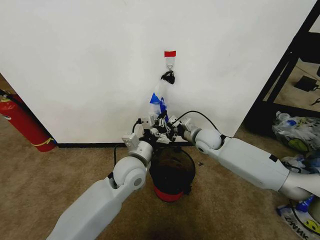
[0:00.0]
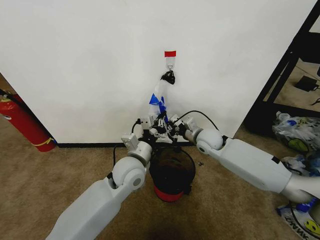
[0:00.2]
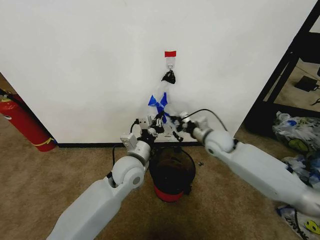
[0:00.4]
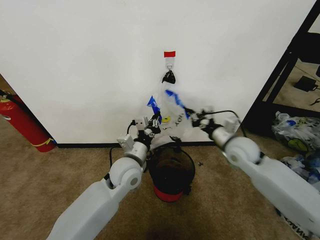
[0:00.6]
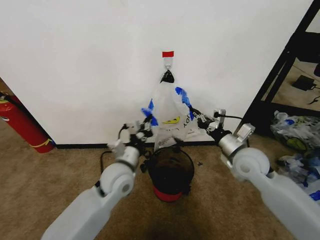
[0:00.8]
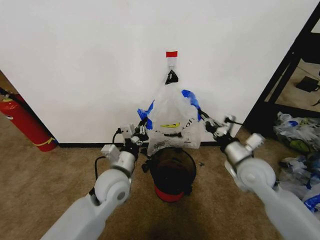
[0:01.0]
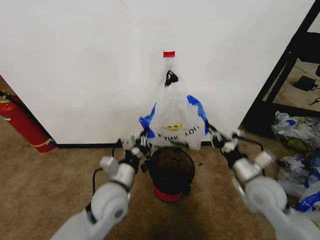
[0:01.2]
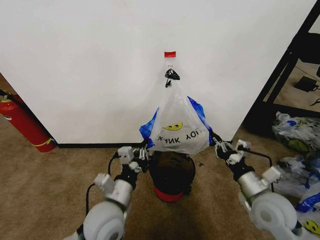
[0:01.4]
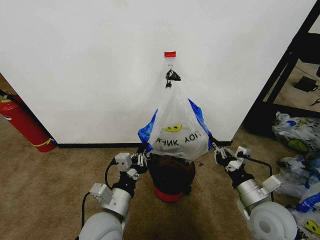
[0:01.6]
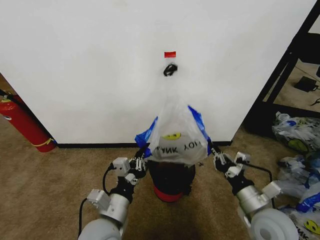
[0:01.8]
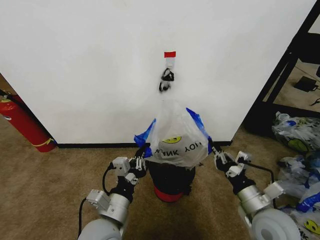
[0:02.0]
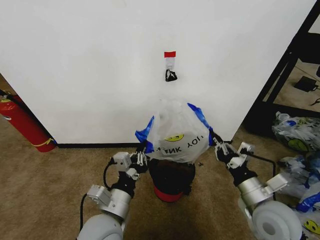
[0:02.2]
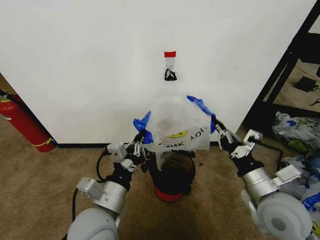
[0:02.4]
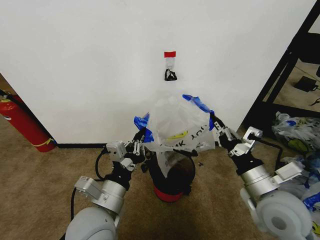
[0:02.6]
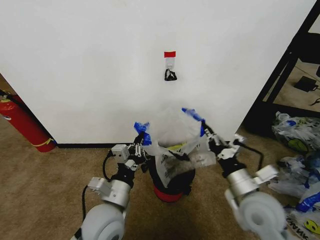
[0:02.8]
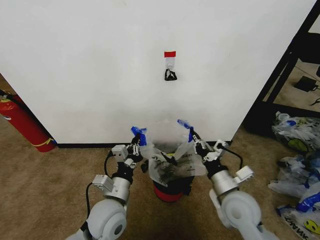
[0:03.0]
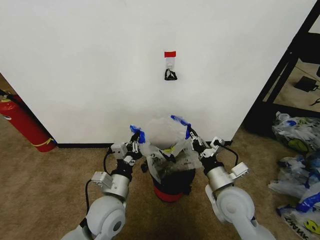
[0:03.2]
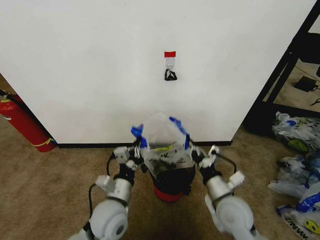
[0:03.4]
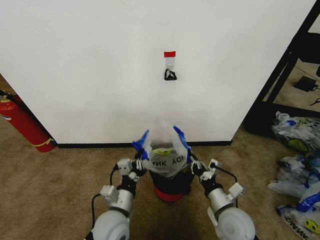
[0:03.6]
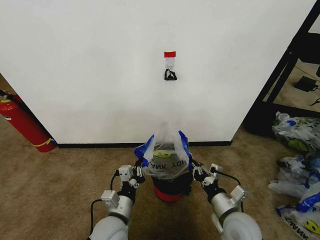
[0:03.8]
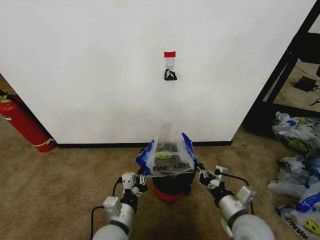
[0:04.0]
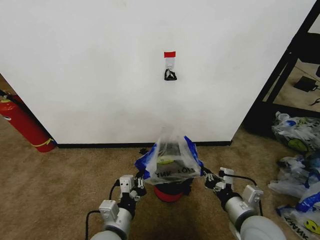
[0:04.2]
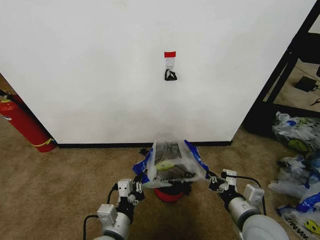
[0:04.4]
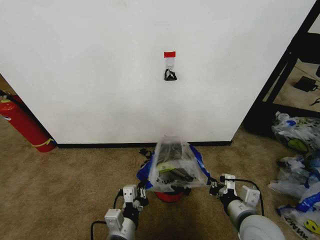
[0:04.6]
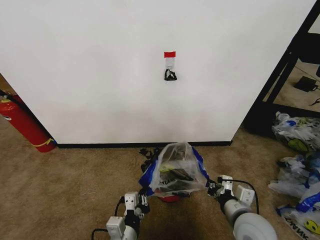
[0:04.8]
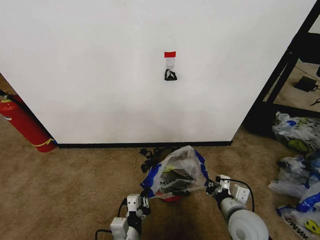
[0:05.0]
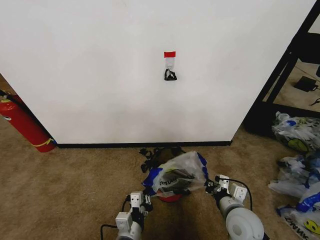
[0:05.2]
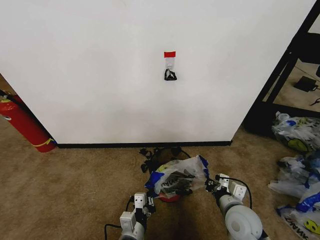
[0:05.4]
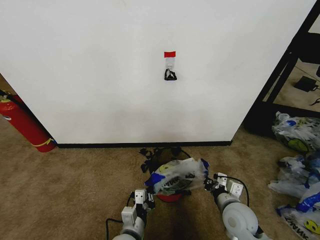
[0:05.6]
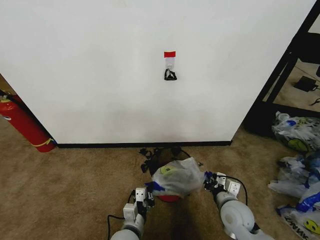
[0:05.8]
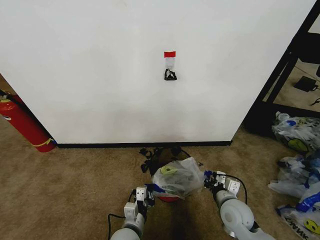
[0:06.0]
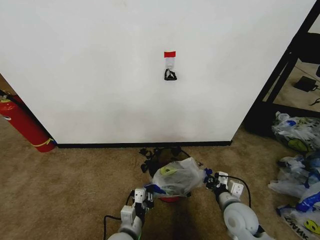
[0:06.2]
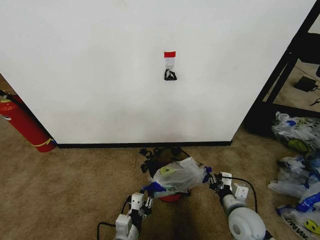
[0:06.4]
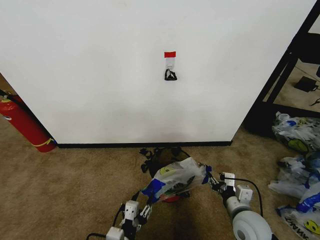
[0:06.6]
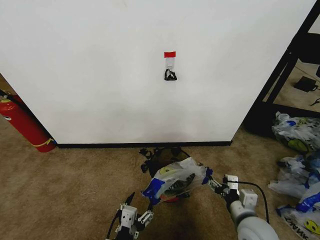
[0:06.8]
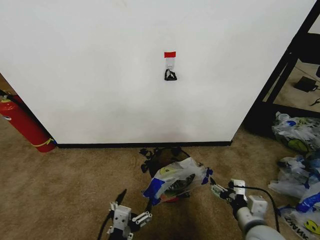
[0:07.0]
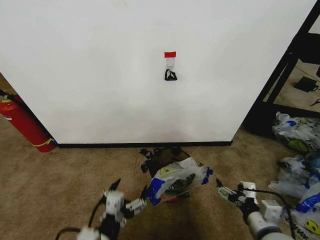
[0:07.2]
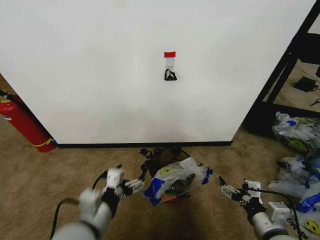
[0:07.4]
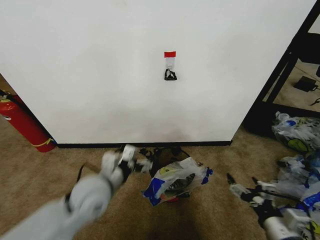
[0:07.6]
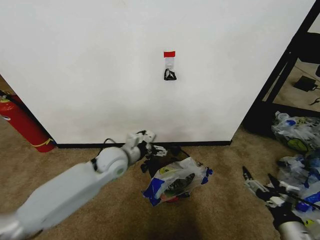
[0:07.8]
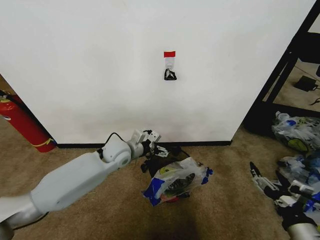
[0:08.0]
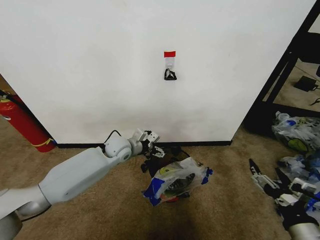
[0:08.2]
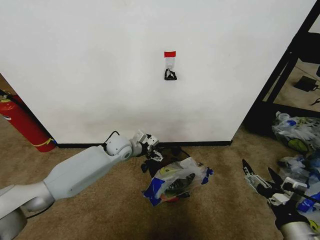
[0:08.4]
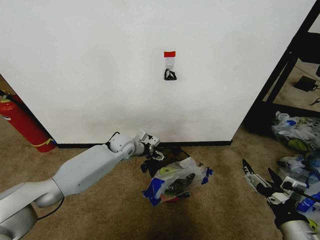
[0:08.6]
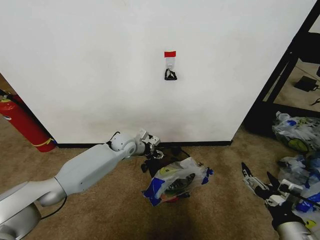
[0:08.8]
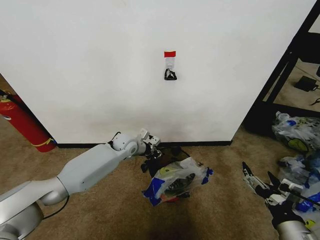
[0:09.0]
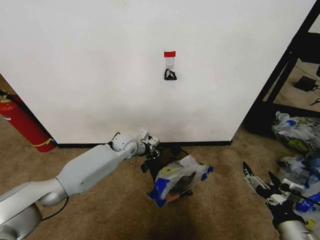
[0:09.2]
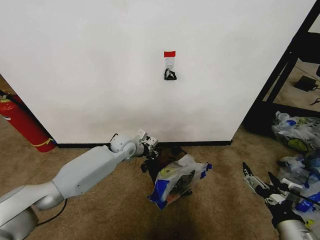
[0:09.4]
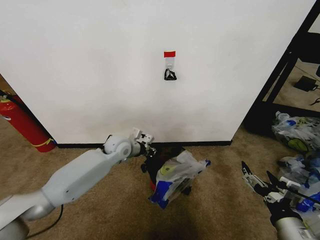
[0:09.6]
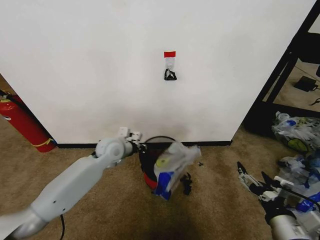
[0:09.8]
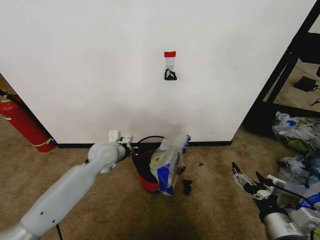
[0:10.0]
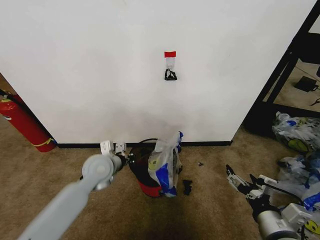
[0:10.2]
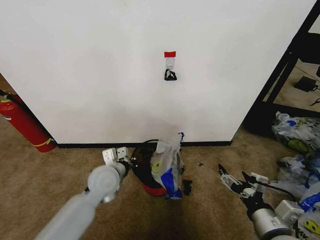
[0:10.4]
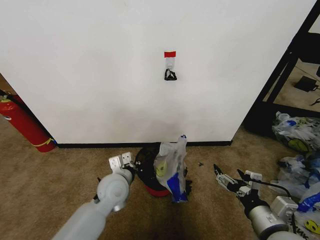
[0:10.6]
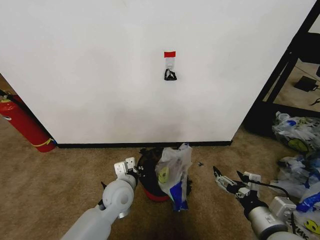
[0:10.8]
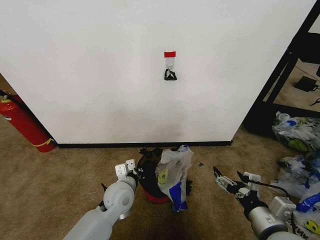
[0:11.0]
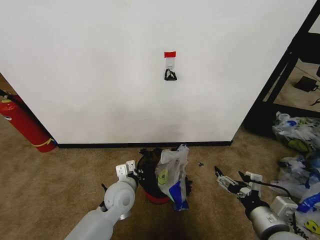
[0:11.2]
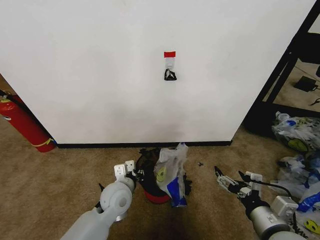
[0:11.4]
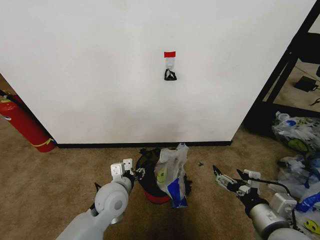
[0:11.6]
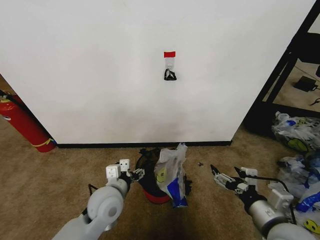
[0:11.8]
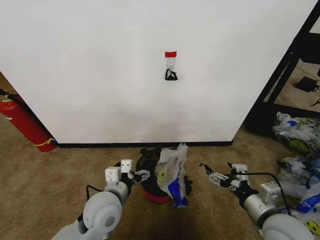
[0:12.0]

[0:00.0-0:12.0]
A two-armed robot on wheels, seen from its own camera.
Task of the whole recording: Pick up the garbage bag from the wall and place it over the trash bin.
0:00.0 to 0:01.6: The right gripper moves backward, some 25 cm. The left gripper travels backward by roughly 15 cm.
0:01.6 to 0:03.0: The right gripper heads to the left, covering some 5 cm, and goes upward and returns, about 5 cm each way.
0:03.0 to 0:04.4: The grippers both shift backward by approximately 5 cm.
0:04.4 to 0:06.0: The right gripper travels downward and forward by some 15 cm; the left gripper moves downward, some 10 cm.
0:06.0 to 0:07.6: The left gripper shifts roughly 20 cm upward, and opens. The right gripper is displaced backward, upward and to the right by approximately 15 cm, and opens its fingers.
0:07.6 to 0:09.0: The left gripper heads forward, covering about 25 cm, and closes up.
0:09.0 to 0:10.4: The left gripper travels backward by about 15 cm.
0:10.4 to 0:12.0: The left gripper heads backward, covering approximately 10 cm, and opens up.

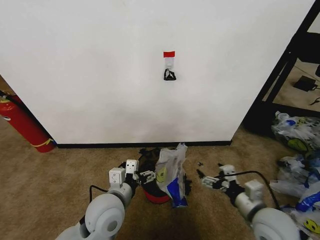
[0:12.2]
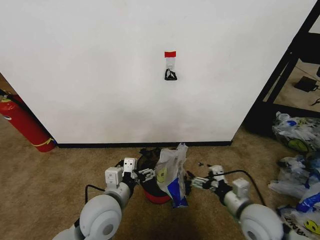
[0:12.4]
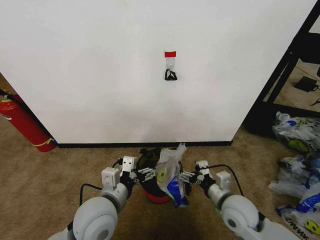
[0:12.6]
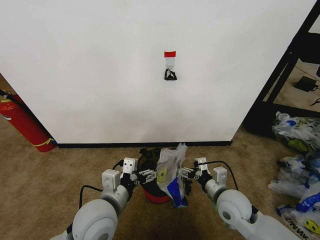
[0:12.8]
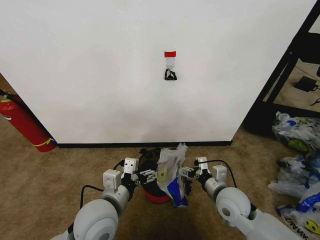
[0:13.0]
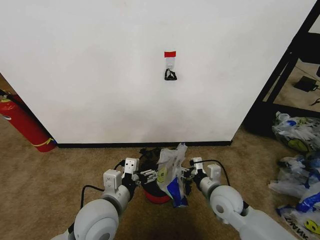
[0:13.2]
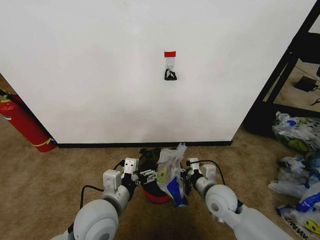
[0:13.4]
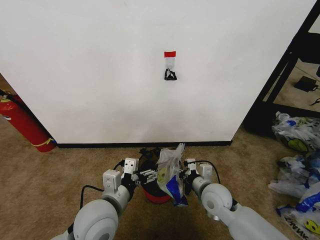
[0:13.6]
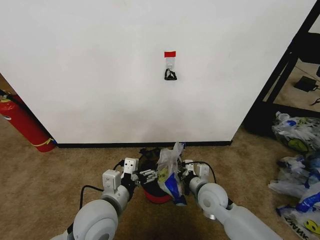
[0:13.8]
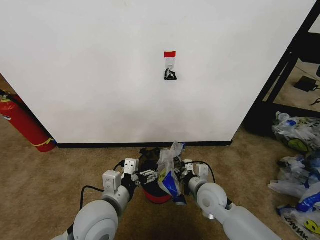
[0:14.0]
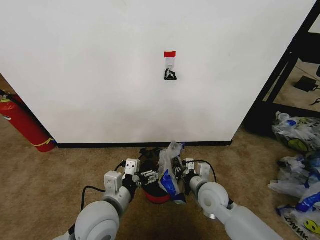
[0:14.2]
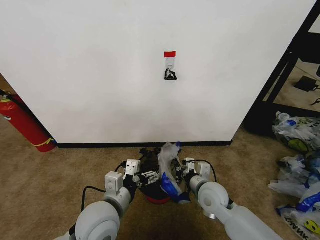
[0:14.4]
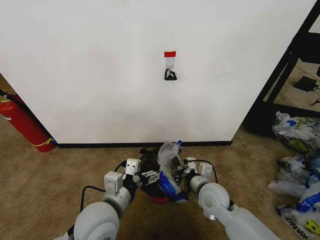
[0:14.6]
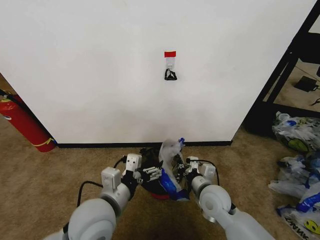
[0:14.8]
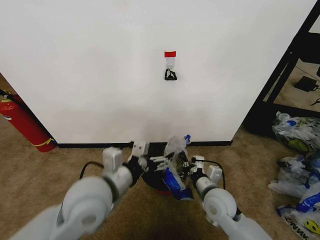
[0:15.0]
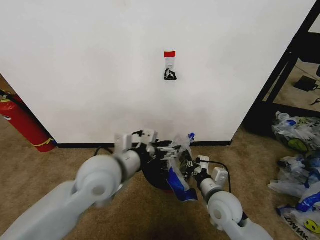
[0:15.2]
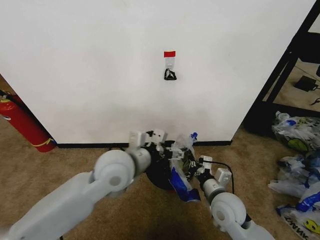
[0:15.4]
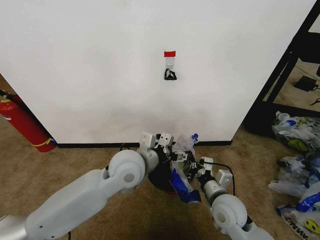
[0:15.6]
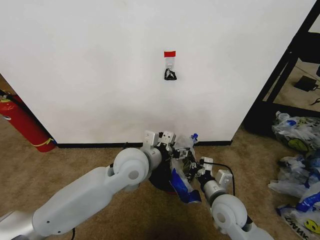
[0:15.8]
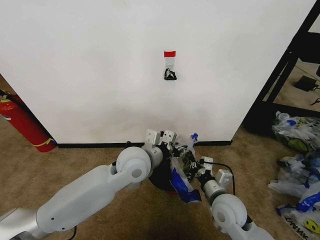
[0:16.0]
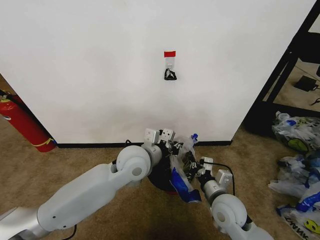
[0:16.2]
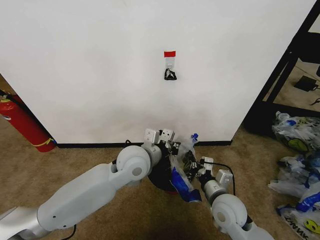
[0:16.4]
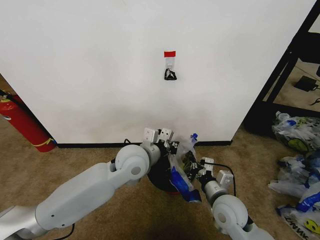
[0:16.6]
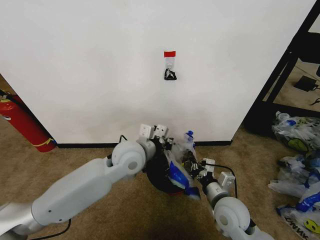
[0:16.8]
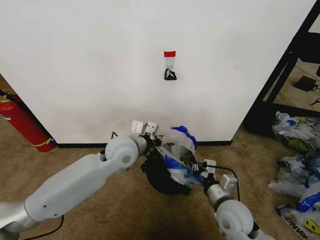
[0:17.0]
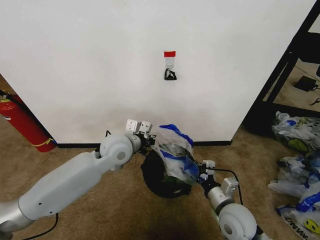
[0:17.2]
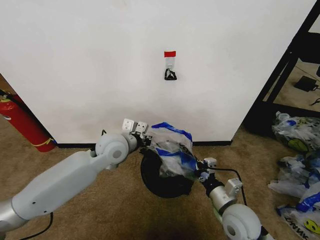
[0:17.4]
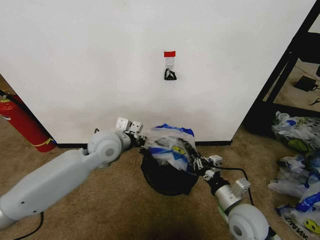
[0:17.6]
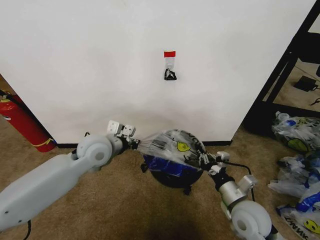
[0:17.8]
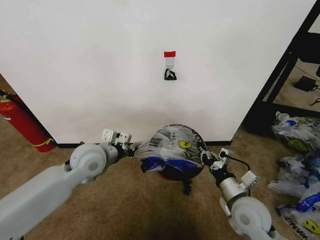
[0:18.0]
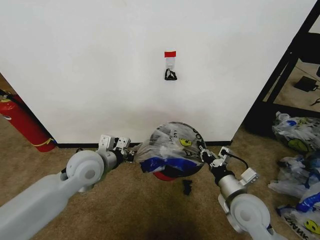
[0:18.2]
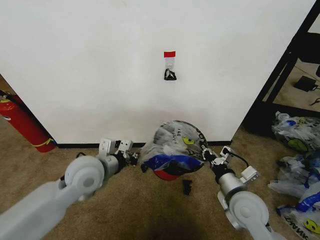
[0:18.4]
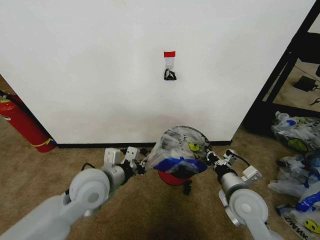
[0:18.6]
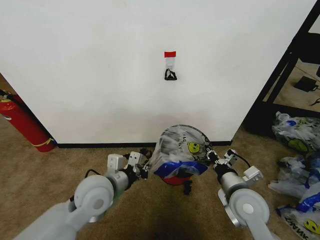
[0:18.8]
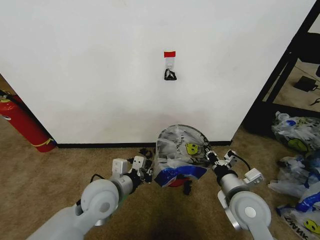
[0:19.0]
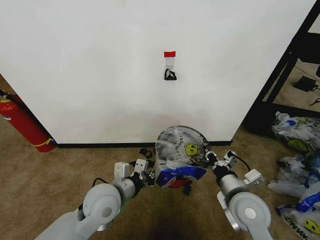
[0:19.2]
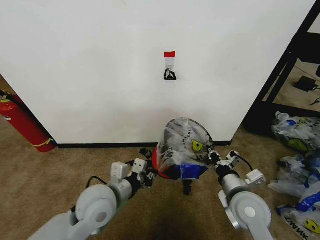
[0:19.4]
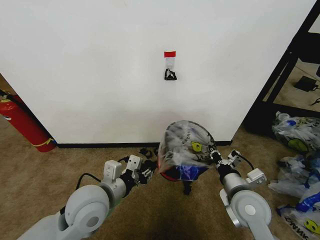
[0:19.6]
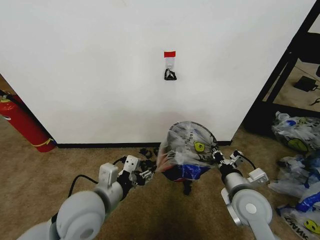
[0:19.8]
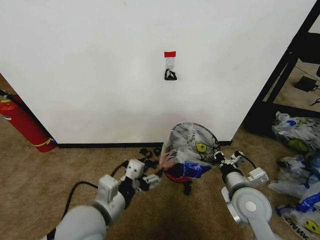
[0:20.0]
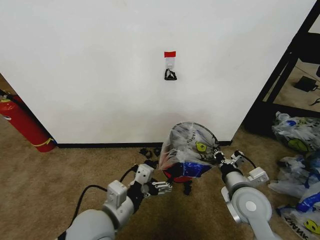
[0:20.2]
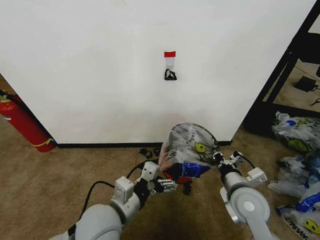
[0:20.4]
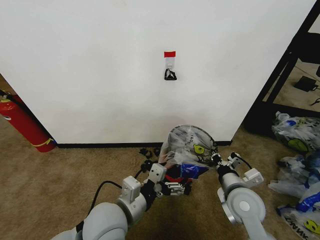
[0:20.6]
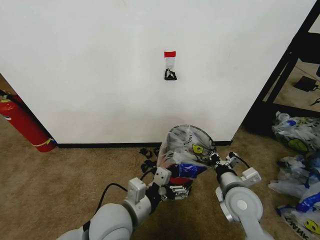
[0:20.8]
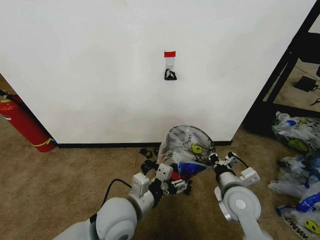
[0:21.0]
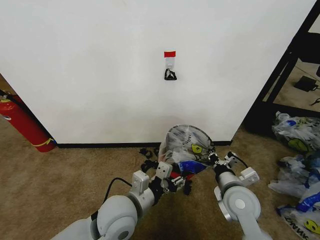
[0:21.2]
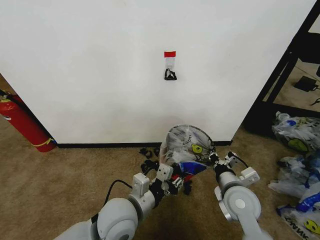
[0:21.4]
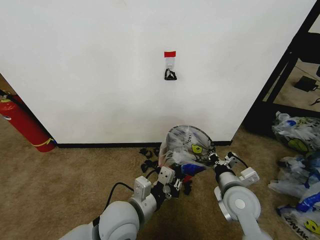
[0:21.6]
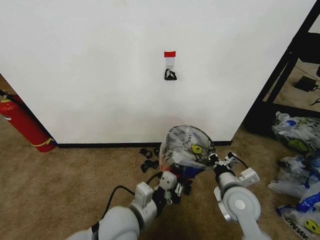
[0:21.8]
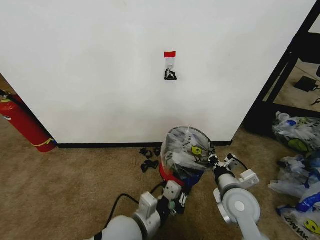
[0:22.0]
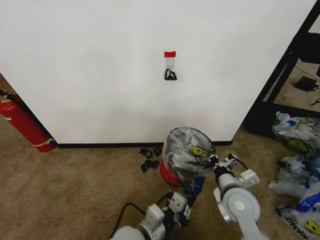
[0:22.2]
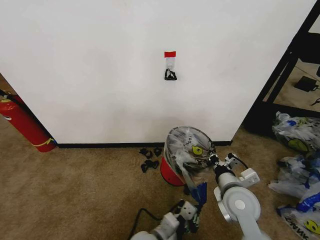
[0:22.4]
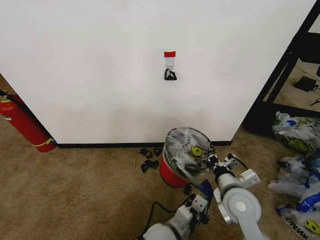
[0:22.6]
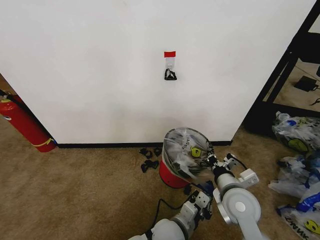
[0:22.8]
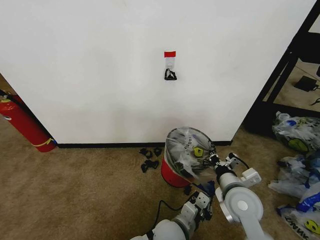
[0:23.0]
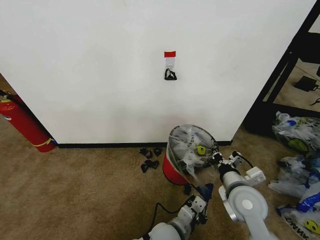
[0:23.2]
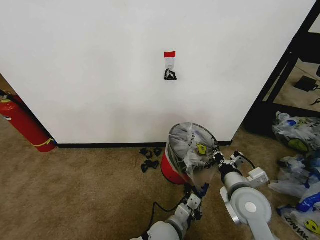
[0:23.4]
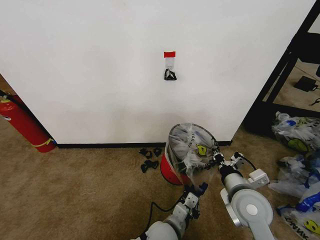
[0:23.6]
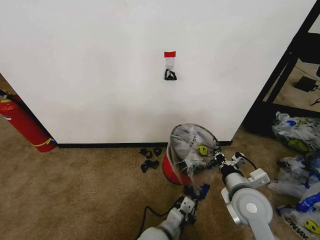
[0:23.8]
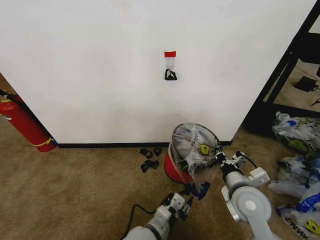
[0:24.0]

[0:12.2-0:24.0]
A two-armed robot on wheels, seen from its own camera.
Task of the whole recording: Pick up the garbage bag from the wall and place it over the trash bin.
0:12.2 to 0:13.6: The right gripper heads to the left, forward and downward, covering about 15 cm.
0:13.6 to 0:15.2: The left gripper moves upward and forward, approximately 10 cm, while the right gripper closes.
0:15.2 to 0:16.6: The left gripper goes some 10 cm forward and to the right, and closes its fingers.
0:16.6 to 0:18.2: The right gripper moves roughly 5 cm. Meanwhile the left gripper shifts roughly 15 cm to the left.
0:18.2 to 0:19.6: The left gripper travels backward by approximately 10 cm.
0:19.6 to 0:21.0: The left gripper heads to the right, covering approximately 5 cm.
0:21.0 to 0:22.6: The left gripper heads to the right and downward, covering roughly 15 cm, and closes.
0:22.6 to 0:24.0: The left gripper travels to the left by some 5 cm, and opens its fingers.
